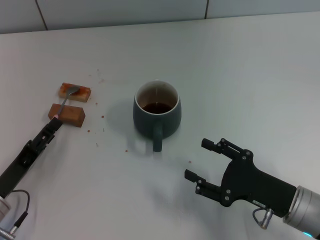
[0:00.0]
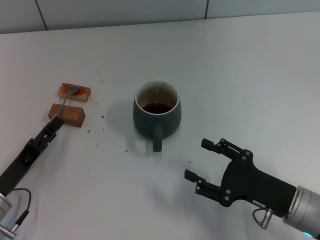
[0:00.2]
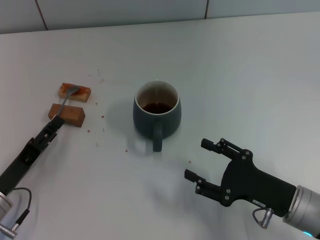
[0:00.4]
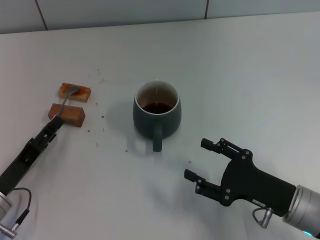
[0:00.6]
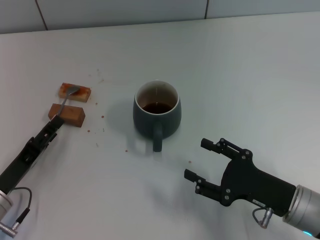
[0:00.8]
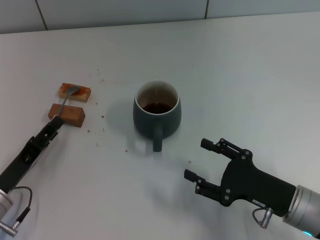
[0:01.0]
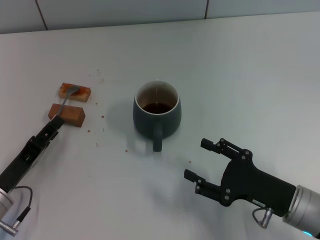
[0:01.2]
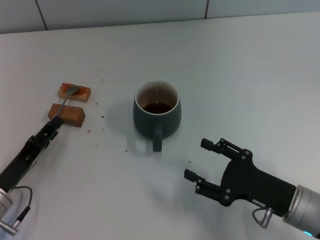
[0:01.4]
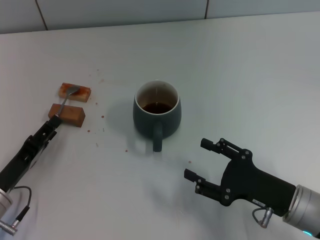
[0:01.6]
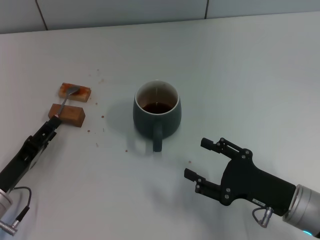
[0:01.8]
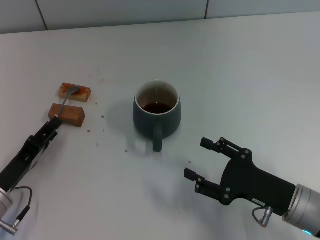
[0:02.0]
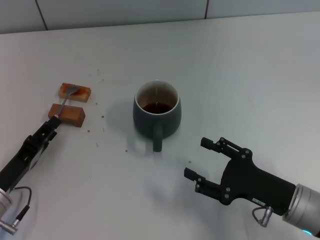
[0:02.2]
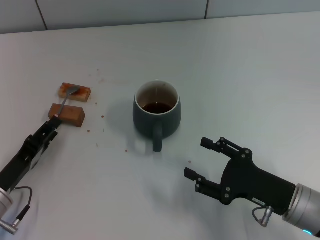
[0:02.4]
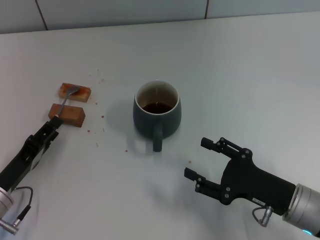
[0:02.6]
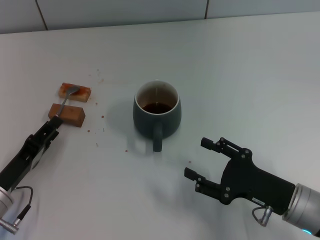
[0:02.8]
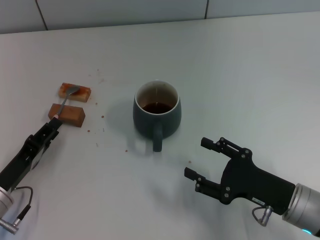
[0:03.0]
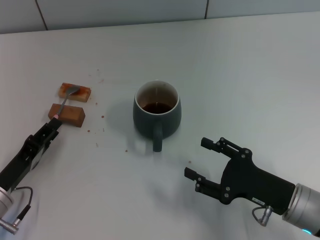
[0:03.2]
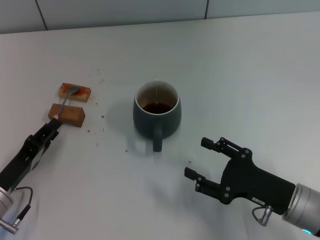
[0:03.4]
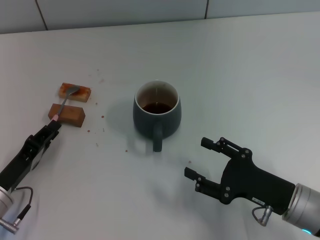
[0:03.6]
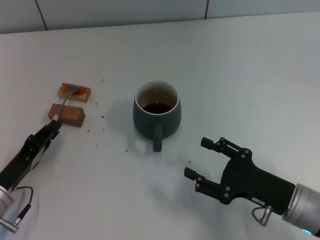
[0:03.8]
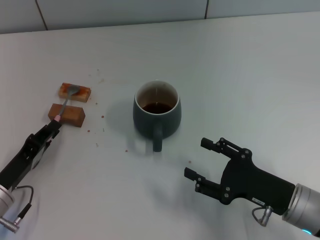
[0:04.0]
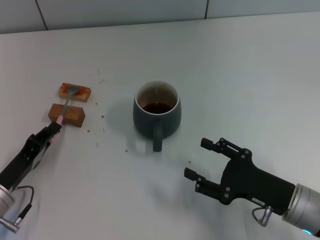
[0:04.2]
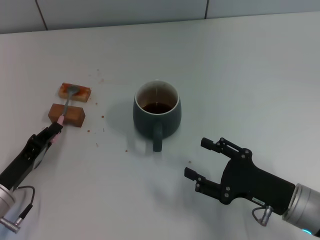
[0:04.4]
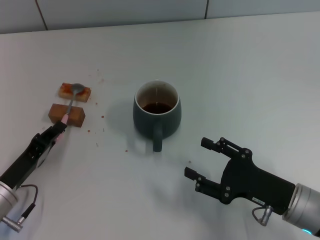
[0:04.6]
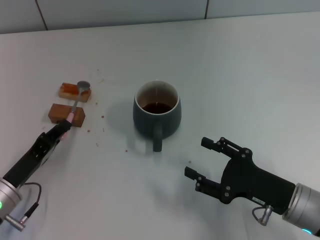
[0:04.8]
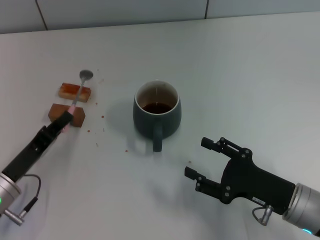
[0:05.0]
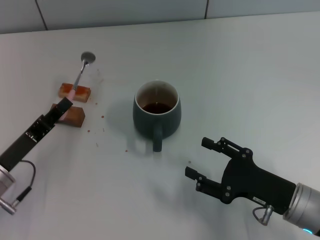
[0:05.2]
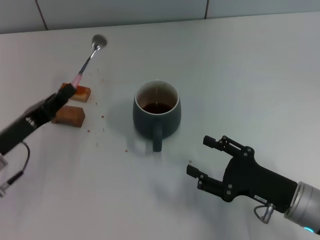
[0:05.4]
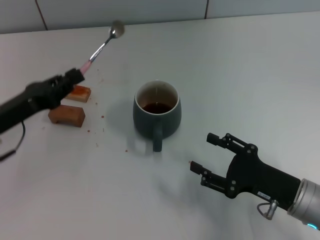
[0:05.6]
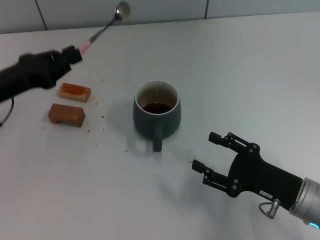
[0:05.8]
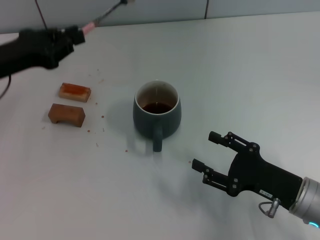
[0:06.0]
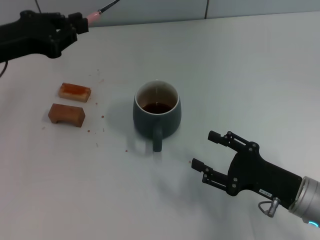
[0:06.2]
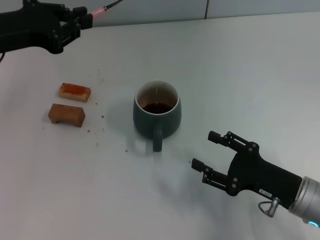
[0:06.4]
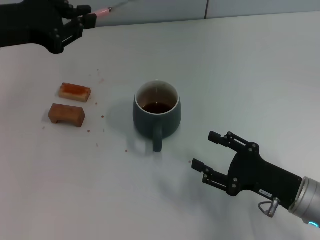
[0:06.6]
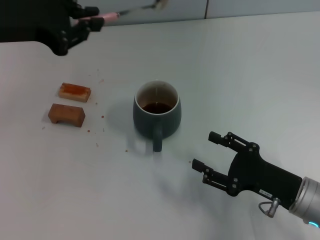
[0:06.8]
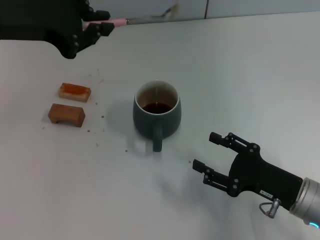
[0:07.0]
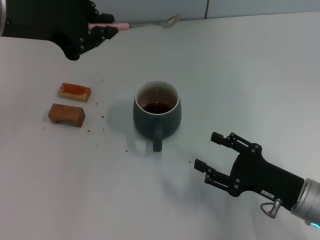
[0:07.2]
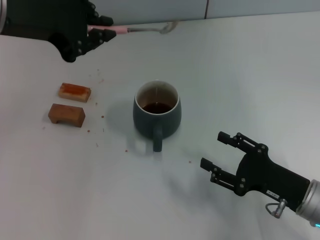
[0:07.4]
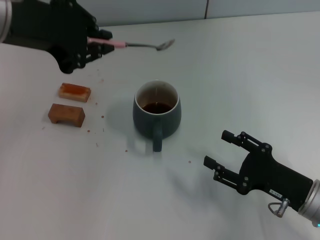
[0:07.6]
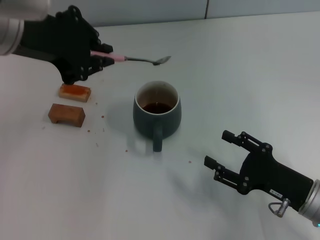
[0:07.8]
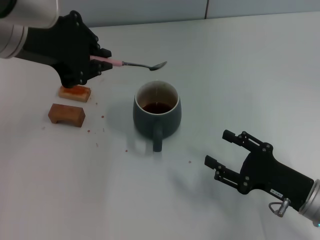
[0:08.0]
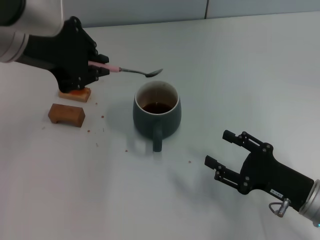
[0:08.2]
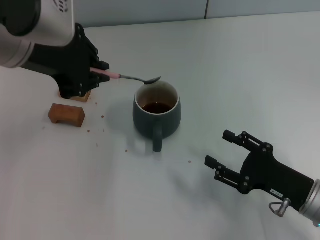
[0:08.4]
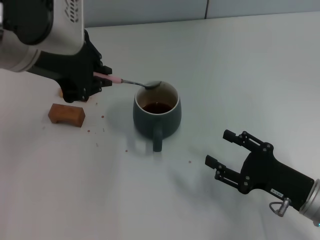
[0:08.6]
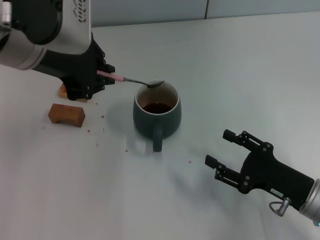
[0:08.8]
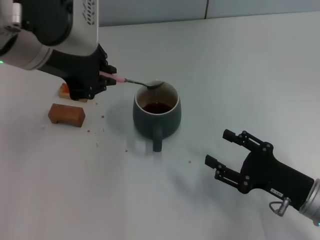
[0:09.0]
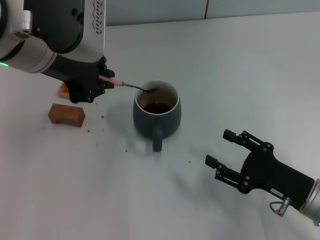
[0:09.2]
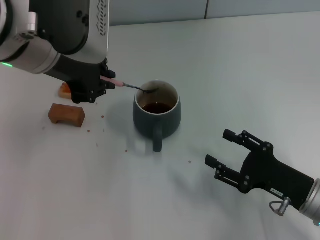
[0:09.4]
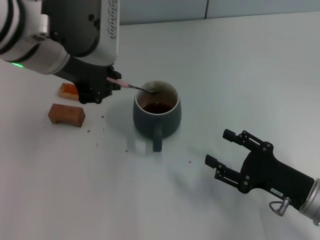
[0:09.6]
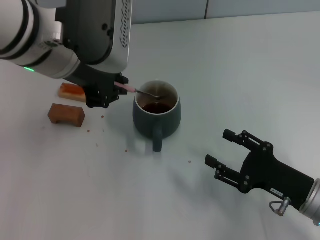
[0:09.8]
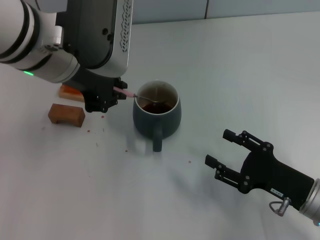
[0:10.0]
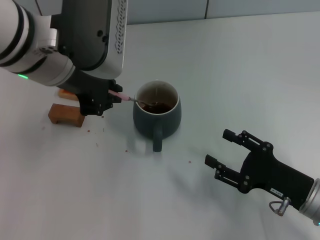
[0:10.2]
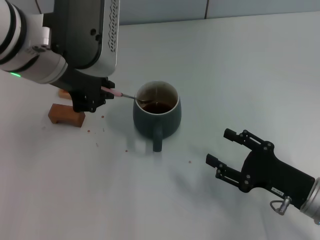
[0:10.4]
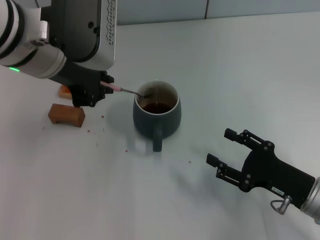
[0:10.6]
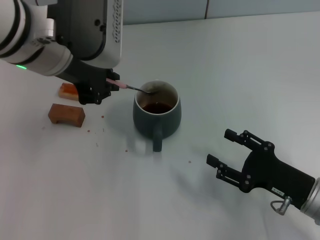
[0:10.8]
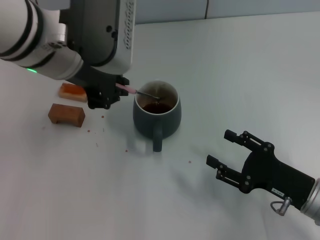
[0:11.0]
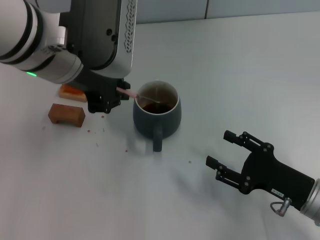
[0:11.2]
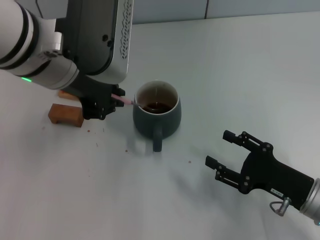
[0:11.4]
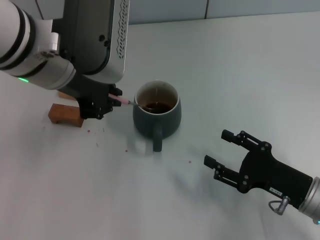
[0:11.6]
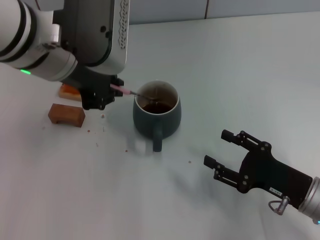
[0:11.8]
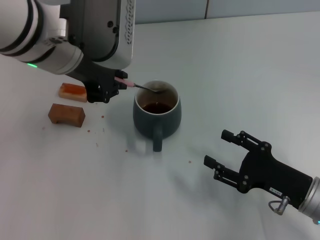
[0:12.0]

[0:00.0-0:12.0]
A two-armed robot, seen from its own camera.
Task of the whole recording: Move the grey cup to the center, lift the pink spoon, stir it three times in the cup, and put the spoon into the cup.
Step, 0:00.0 to 0:04.8: Pick up the spoon with the left gripper.
0:00.0 to 0:01.6: Both grippers stay about where they are.
0:01.6 to 0:03.0: Both grippers stay about where they are.
0:03.0 to 0:04.4: The left gripper closes.
0:04.4 to 0:06.0: The left gripper goes roughly 20 cm upward and forward.
0:06.0 to 0:07.6: The left gripper is displaced upward and to the right by roughly 20 cm.
0:07.6 to 0:09.0: The grippers move only a little.
0:09.0 to 0:12.0: The grippers move only a little.

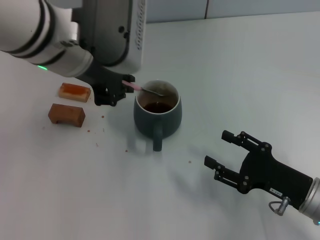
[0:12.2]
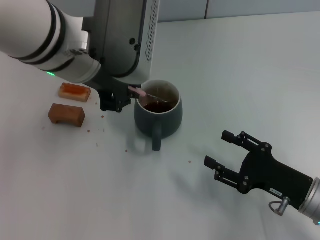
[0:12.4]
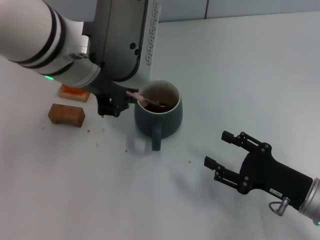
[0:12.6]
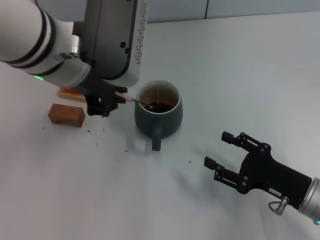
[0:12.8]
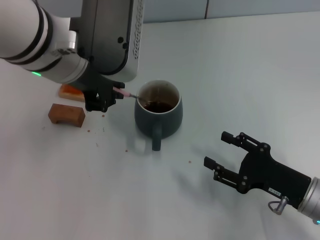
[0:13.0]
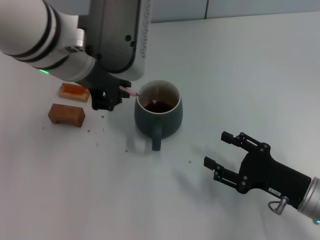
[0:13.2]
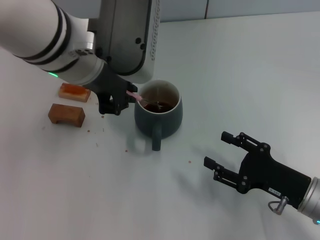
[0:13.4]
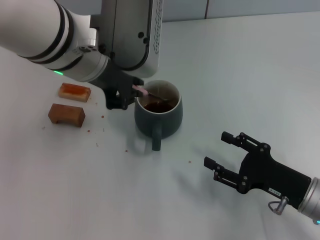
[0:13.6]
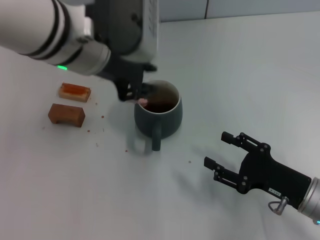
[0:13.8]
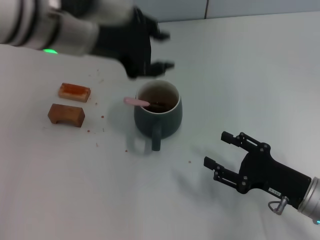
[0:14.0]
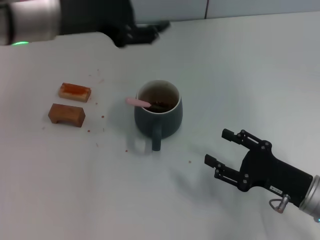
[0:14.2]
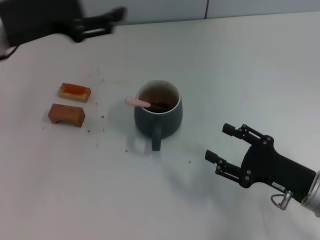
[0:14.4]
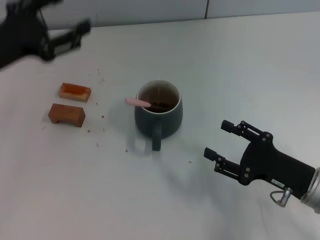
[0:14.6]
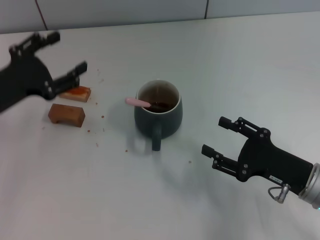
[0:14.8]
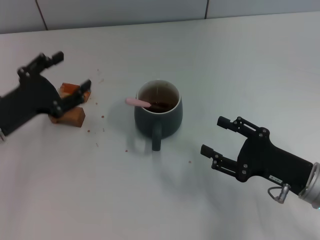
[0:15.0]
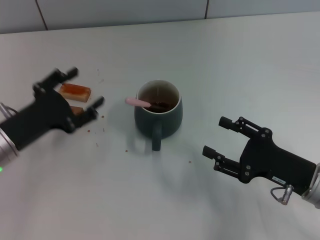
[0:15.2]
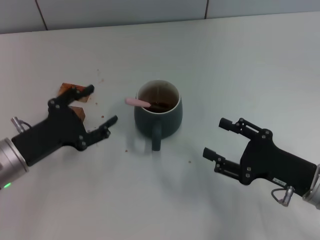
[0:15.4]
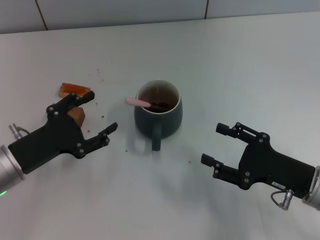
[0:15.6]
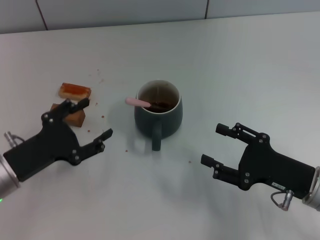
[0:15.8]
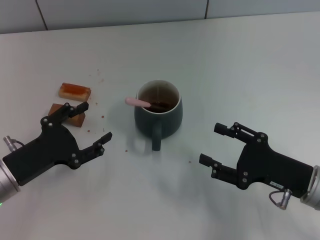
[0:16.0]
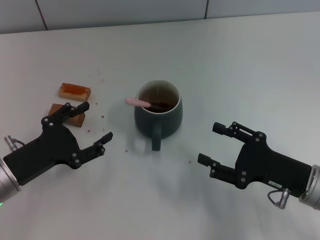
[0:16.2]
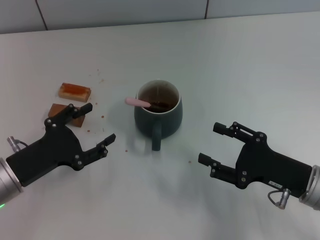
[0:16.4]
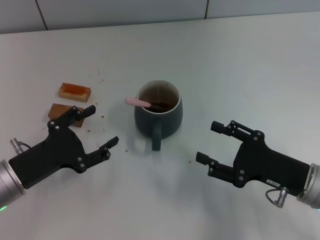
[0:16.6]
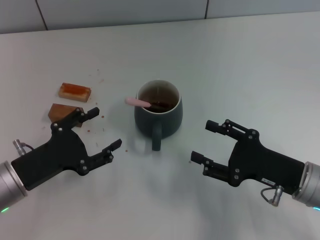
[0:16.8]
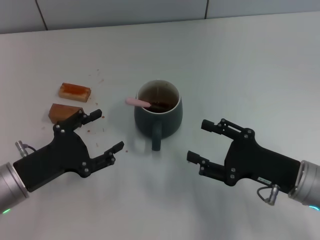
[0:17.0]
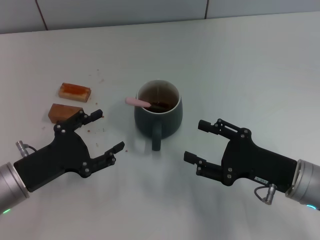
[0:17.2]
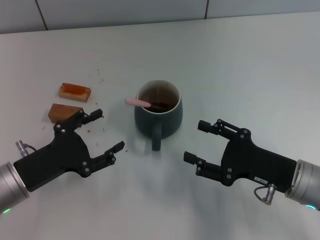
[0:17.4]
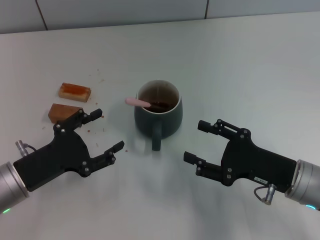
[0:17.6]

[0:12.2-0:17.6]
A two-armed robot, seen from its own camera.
Task of the whole recording: Move the grey cup to the center, lift the pink spoon, stir it three times in the cup, and put the spoon into the cup.
0:12.2 to 0:13.6: The grippers move only a little.
0:13.6 to 0:15.0: The left gripper travels to the left and downward by roughly 25 cm, and opens.
0:15.0 to 0:16.2: The left gripper is displaced backward by some 5 cm.
0:16.2 to 0:17.6: The grippers move only a little.
